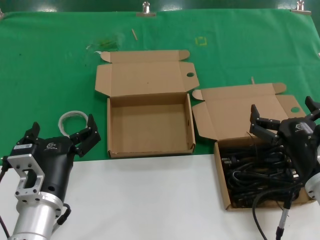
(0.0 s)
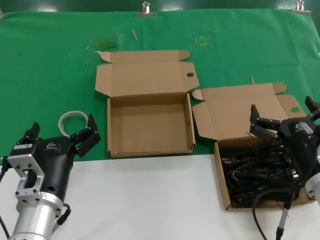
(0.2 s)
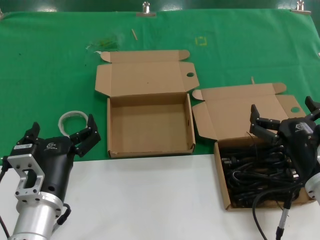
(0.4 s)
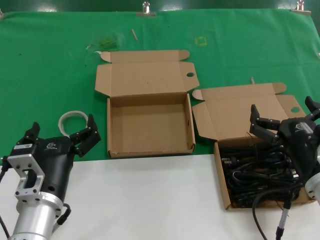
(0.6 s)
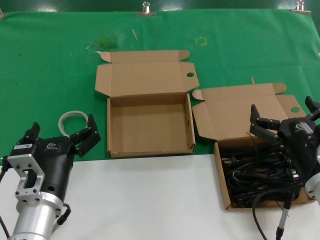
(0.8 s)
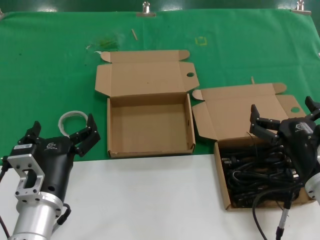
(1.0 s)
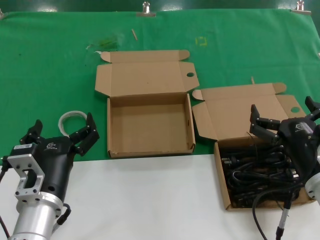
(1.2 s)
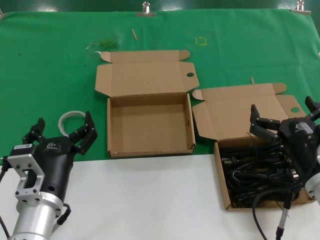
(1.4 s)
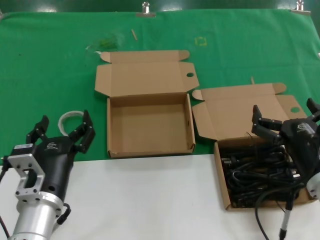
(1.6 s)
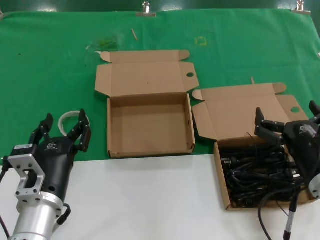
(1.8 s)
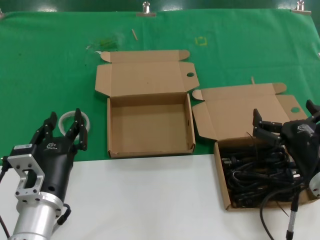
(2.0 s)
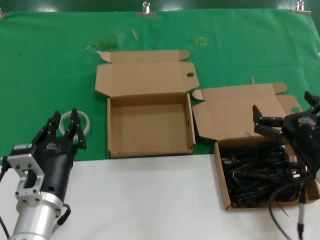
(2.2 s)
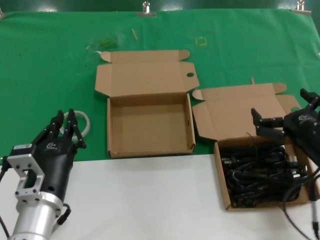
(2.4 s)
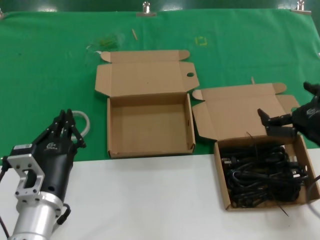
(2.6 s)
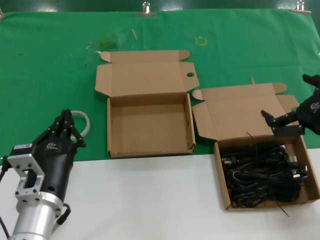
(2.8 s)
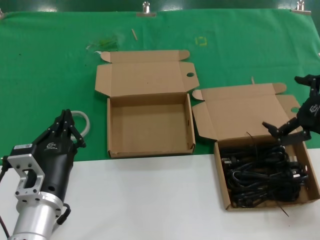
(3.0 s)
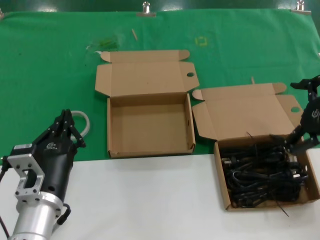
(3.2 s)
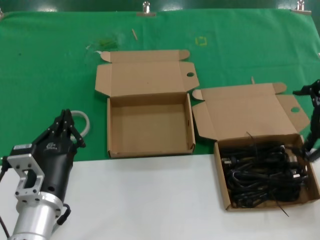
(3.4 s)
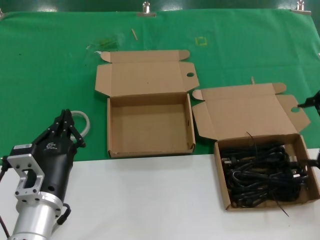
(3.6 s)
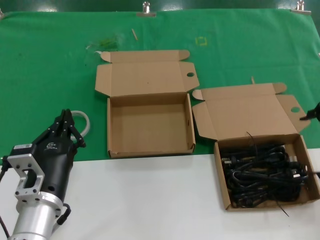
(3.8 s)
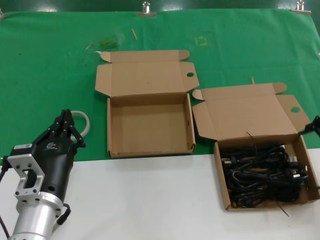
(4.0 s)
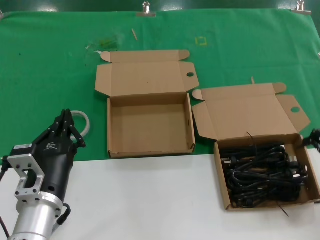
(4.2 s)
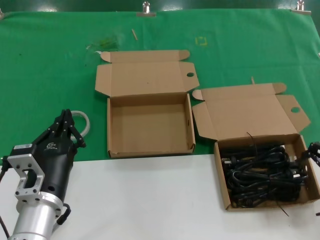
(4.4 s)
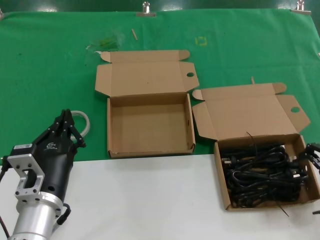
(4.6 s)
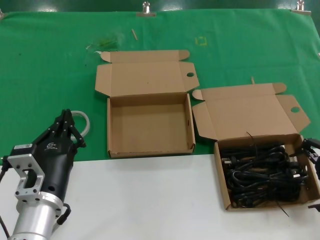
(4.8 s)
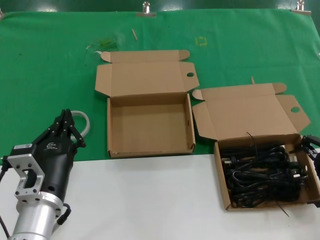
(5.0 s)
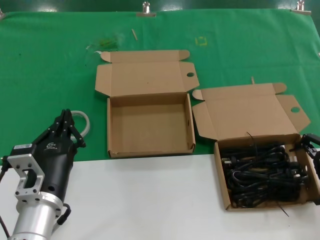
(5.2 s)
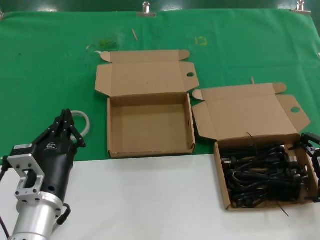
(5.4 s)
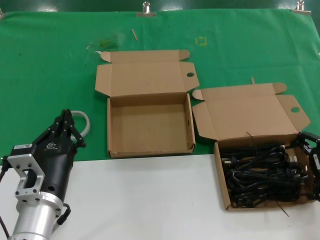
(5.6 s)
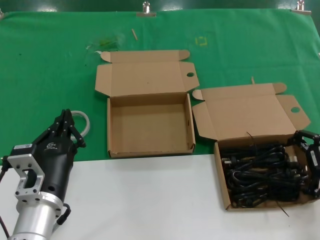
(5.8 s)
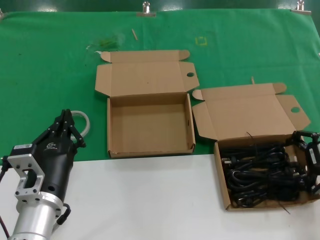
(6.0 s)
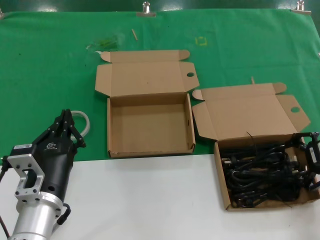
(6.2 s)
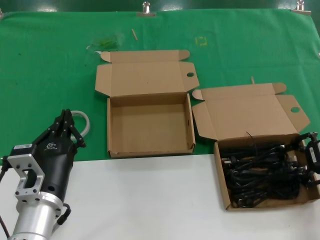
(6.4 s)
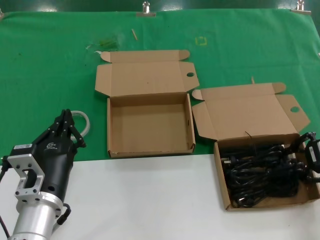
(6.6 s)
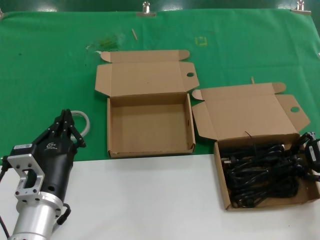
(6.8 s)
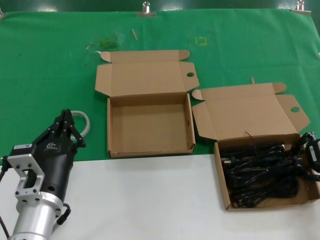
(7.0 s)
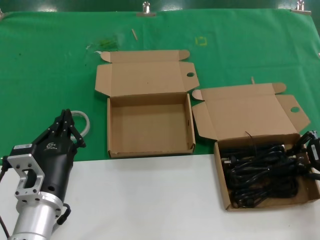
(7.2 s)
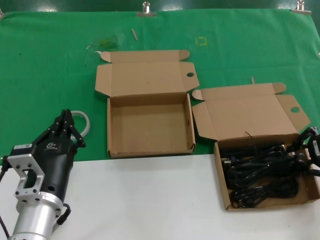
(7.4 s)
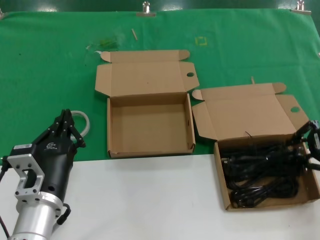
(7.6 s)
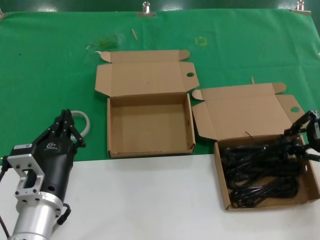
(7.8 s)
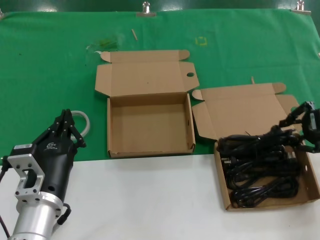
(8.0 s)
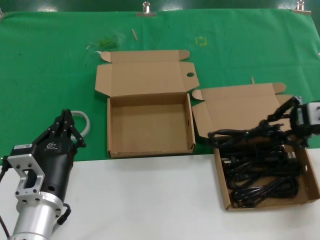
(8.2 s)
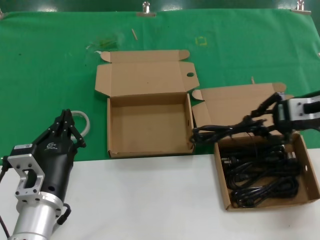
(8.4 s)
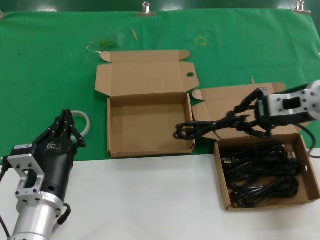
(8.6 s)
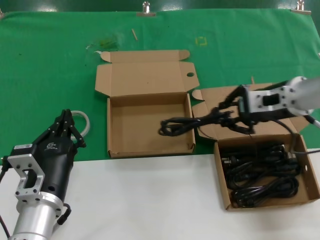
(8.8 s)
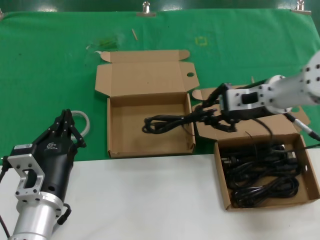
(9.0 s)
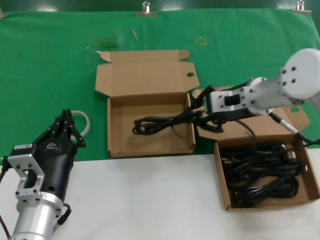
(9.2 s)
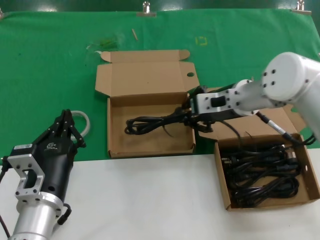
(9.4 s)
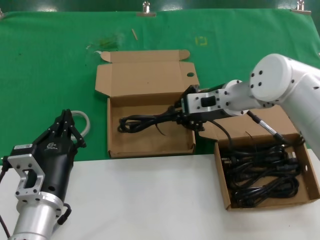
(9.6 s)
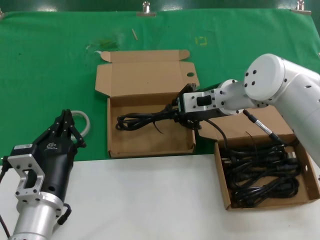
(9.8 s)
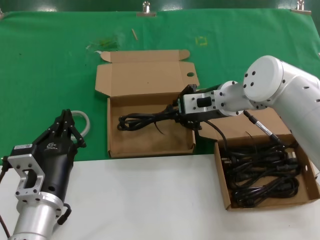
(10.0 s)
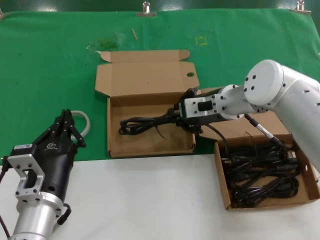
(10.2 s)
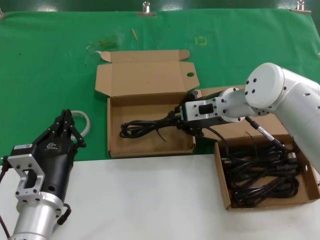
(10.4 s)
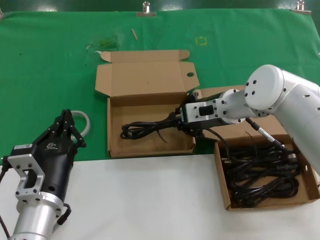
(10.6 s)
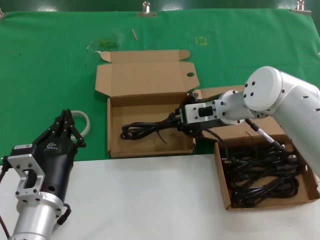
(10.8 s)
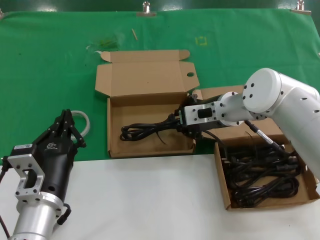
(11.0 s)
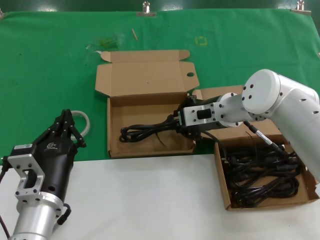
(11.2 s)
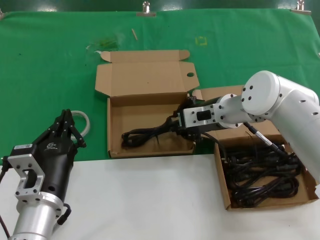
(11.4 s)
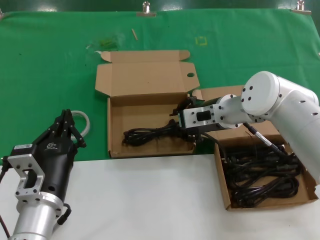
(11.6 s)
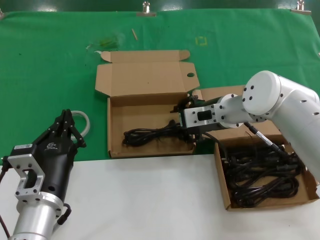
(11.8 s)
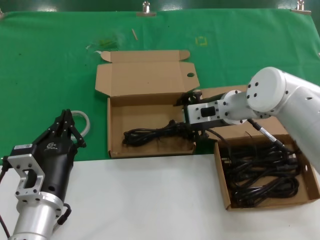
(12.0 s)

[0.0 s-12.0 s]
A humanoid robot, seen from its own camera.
Task of the whole recording: take the parts from the box containing them and put them into an empty box.
Step, 0.0 to 6.6 s: Grasp the data cable.
Step, 7.0 to 11.6 s: Place the data cable in the another box.
0.0 to 1.6 s: Both hands stay put.
1.6 to 3.0 s: The right hand shifts approximately 15 cm upward and to the right.
4.4 to 6.0 s: The right hand moves forward, roughly 5 cm.
6.0 to 7.6 s: There are only small adjustments of the hands.
7.6 to 9.0 s: The right hand heads to the left and forward, covering roughly 15 cm.
9.0 to 10.4 s: The right hand heads to the left and downward, covering roughly 10 cm.
10.4 to 12.0 s: The hands move only a little.

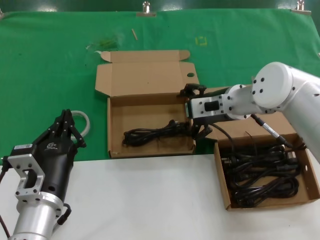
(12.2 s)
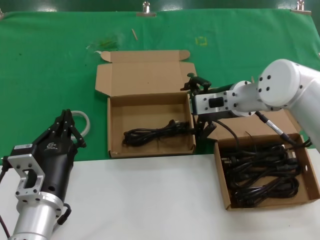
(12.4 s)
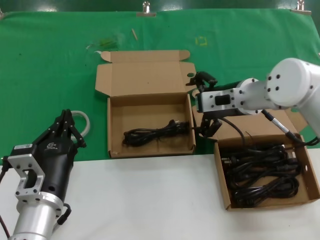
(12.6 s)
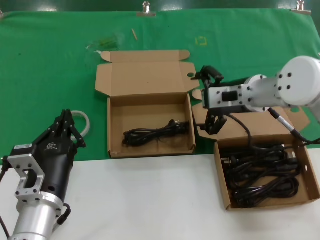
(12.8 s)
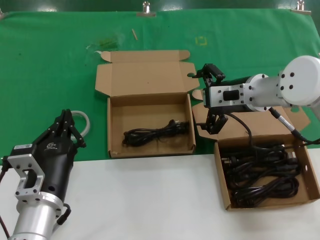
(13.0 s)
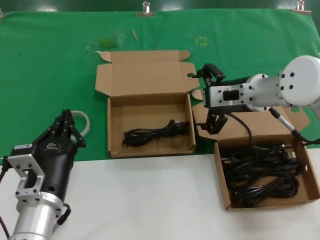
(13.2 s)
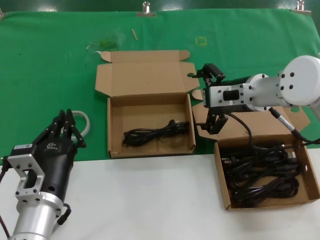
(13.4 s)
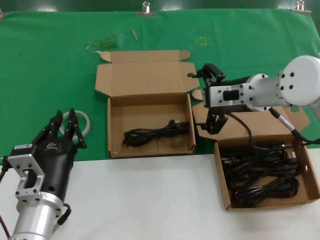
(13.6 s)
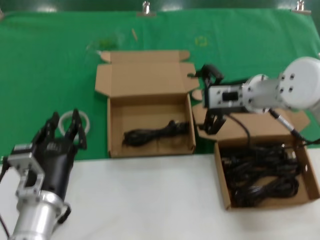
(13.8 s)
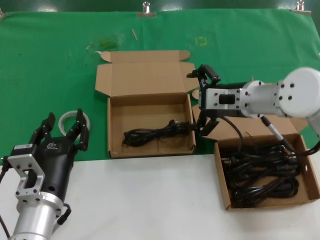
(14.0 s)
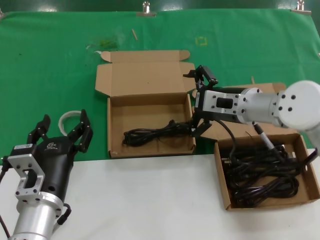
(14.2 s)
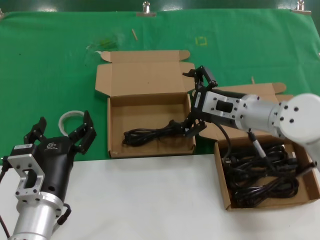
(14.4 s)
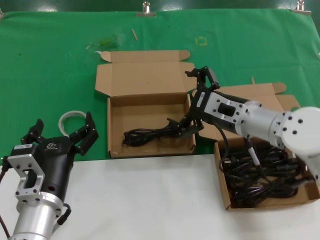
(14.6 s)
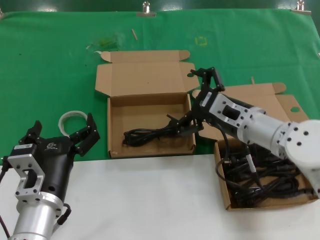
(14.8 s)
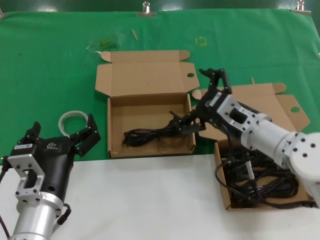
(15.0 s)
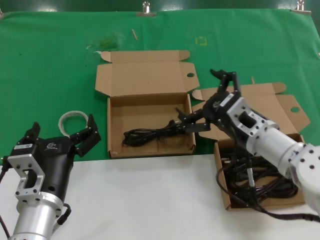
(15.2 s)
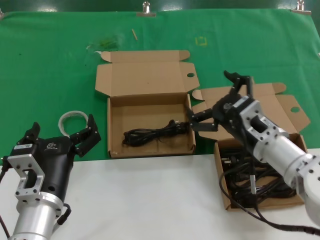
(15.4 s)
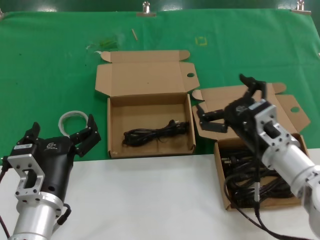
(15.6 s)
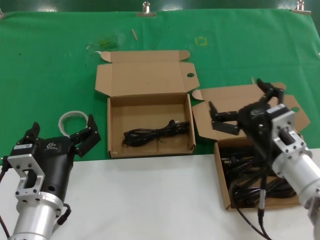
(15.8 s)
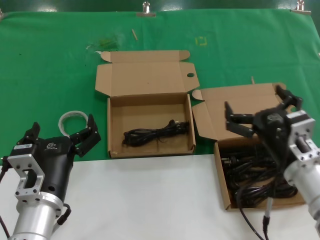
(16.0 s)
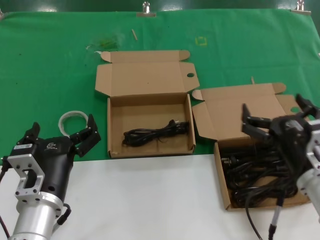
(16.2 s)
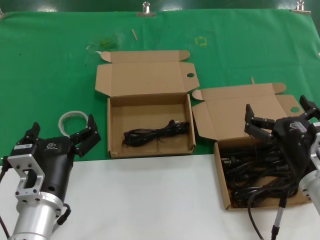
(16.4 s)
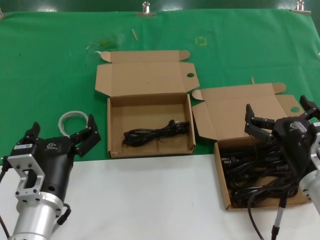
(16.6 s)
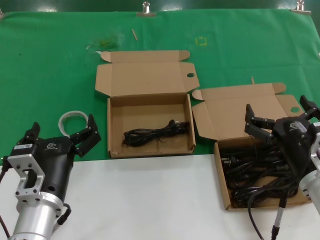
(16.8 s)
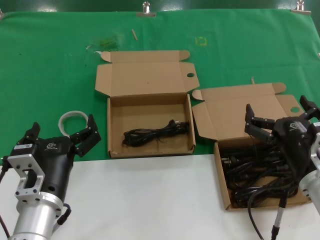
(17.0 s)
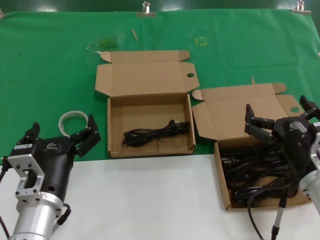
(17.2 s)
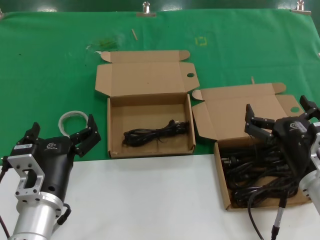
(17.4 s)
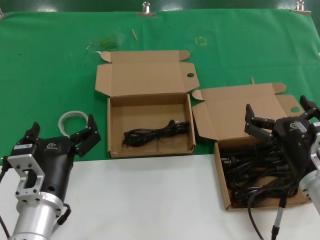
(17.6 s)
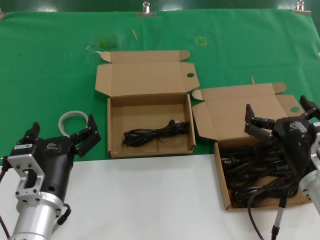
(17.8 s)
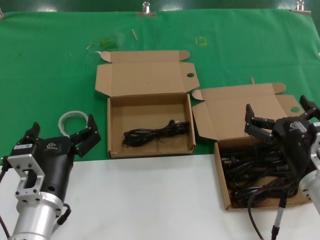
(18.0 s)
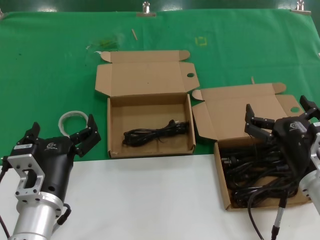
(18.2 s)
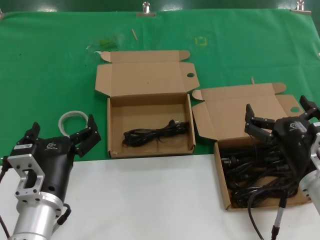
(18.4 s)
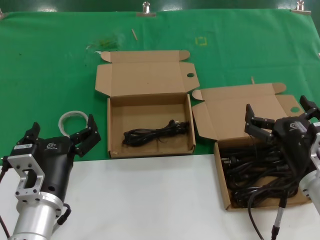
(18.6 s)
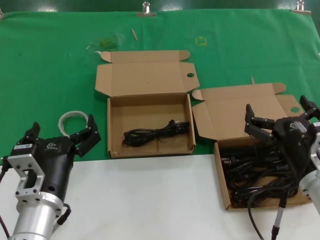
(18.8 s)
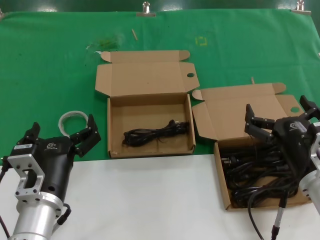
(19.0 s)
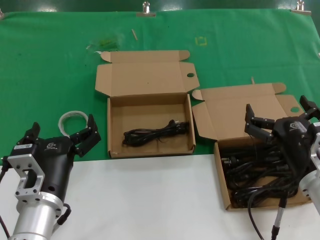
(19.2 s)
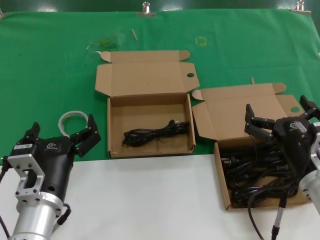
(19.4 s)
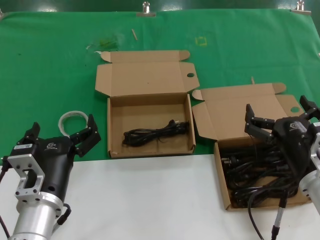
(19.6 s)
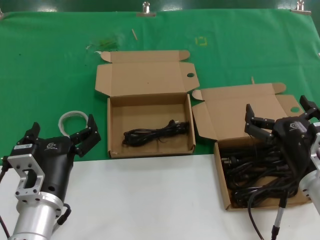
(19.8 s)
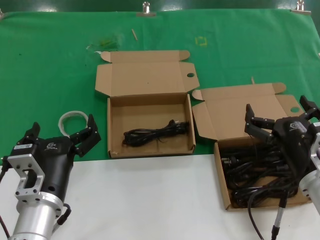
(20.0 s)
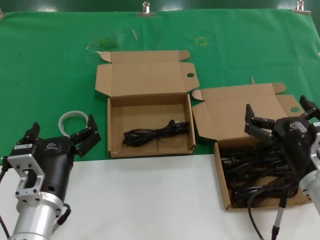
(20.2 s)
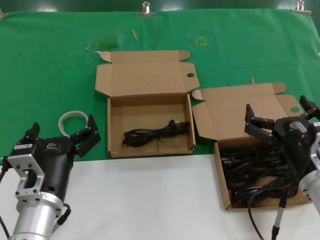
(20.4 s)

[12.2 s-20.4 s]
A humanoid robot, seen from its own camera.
Task of the whole recording: take the parts from the box containing them and put them into an empty box.
12.2 to 13.8 s: The hands move only a little.
13.8 to 15.4 s: The right hand is displaced backward and downward by roughly 15 cm.
15.4 to 17.2 s: The right hand moves backward, about 10 cm.
17.2 to 20.4 s: The two hands keep their place.

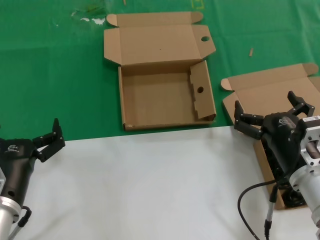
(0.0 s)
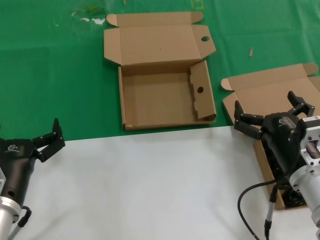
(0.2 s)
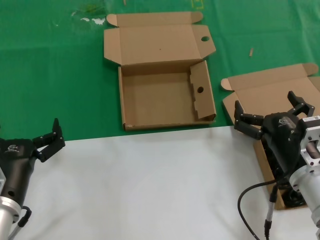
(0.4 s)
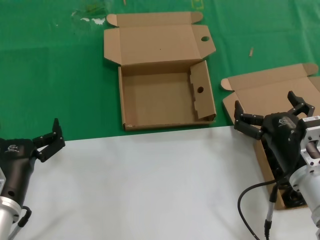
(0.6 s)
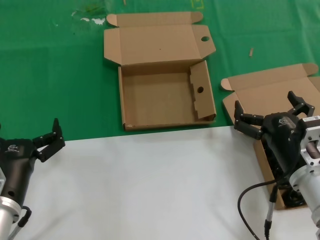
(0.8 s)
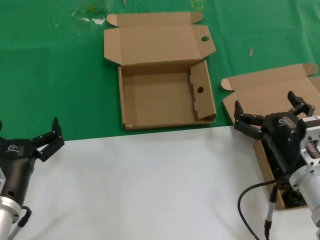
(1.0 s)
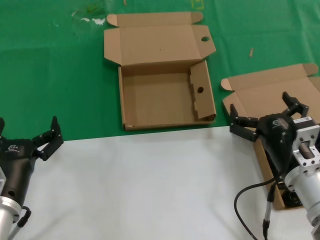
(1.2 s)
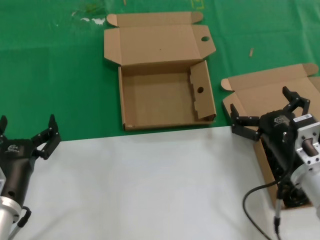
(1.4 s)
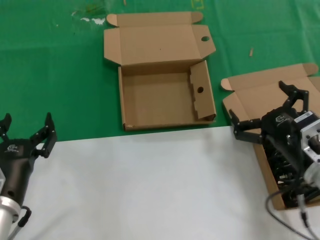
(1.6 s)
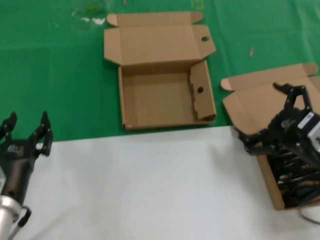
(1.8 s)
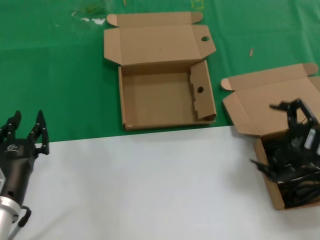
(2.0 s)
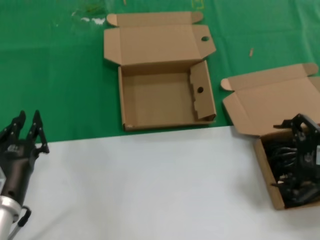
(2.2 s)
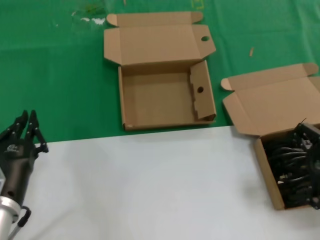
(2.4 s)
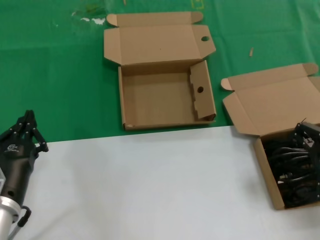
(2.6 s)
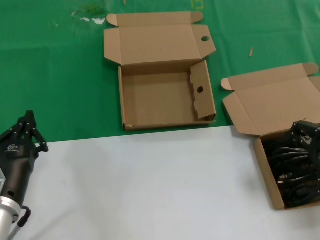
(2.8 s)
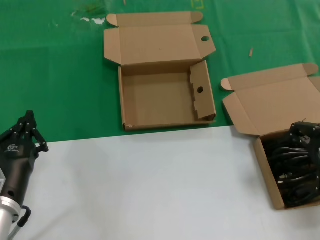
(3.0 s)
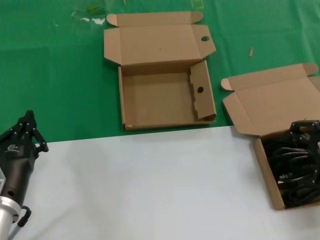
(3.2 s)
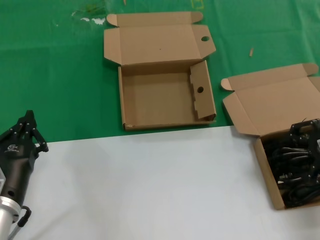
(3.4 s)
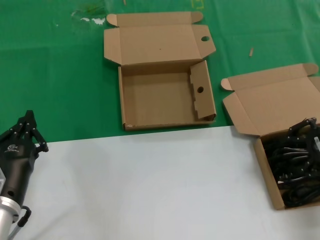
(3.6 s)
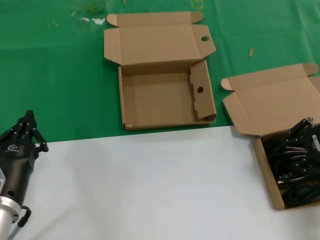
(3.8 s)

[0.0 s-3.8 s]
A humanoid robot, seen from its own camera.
Task of the whole recording: take the parts from the box containing them and put them into an empty box.
0.0 to 1.2 s: Both hands stay about where they are.
1.2 to 2.6 s: The right hand is displaced upward and to the right by roughly 20 cm.
2.6 to 3.8 s: The right hand travels forward by about 5 cm.
